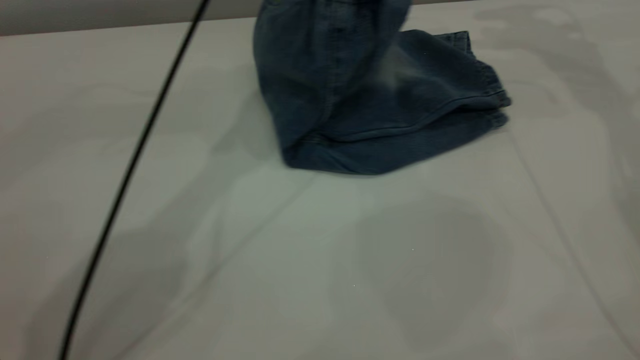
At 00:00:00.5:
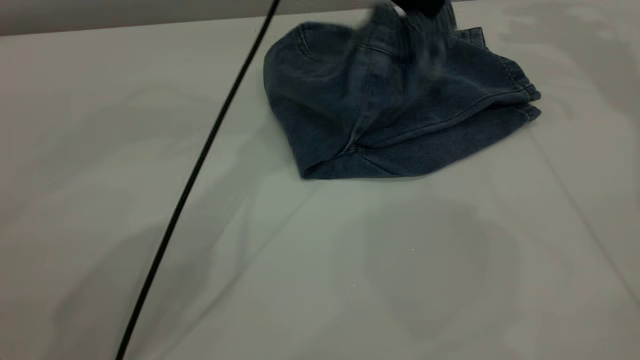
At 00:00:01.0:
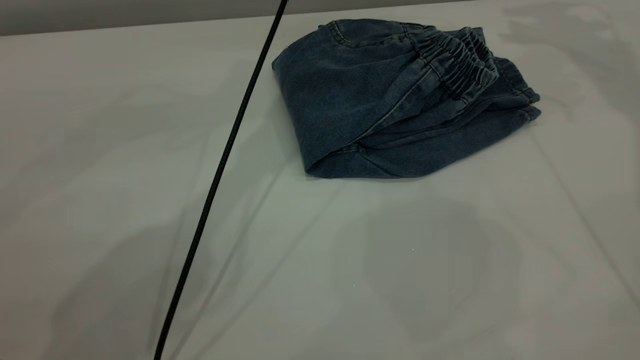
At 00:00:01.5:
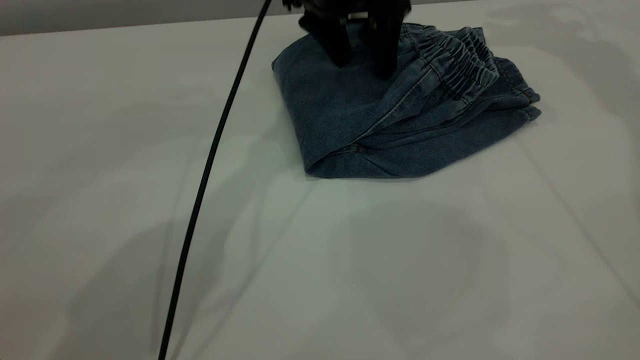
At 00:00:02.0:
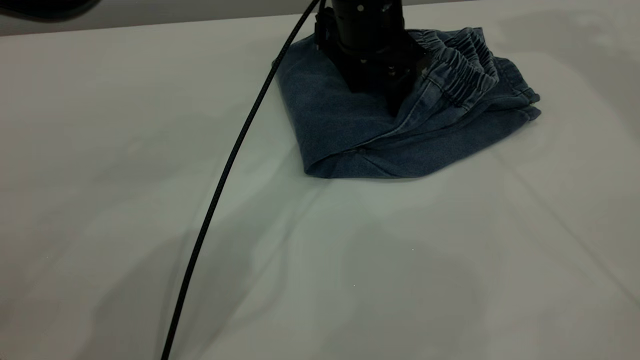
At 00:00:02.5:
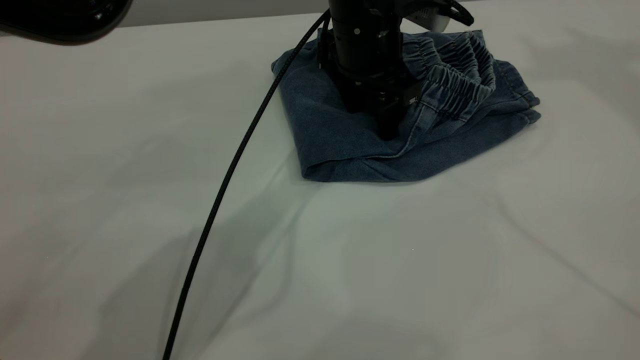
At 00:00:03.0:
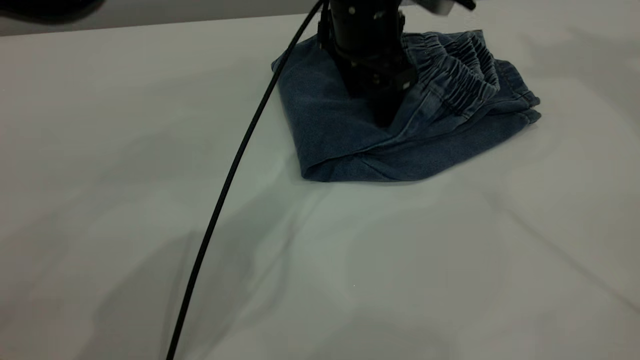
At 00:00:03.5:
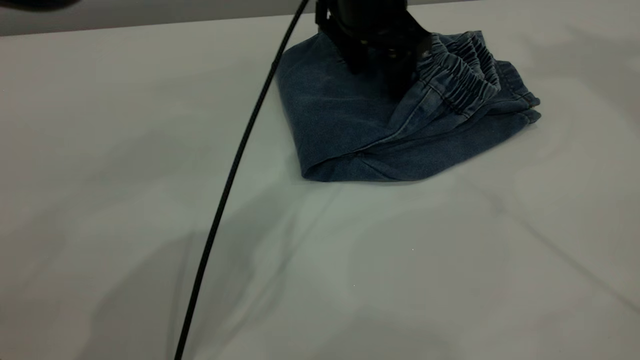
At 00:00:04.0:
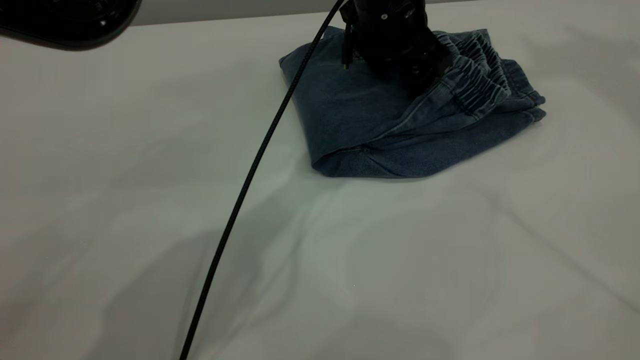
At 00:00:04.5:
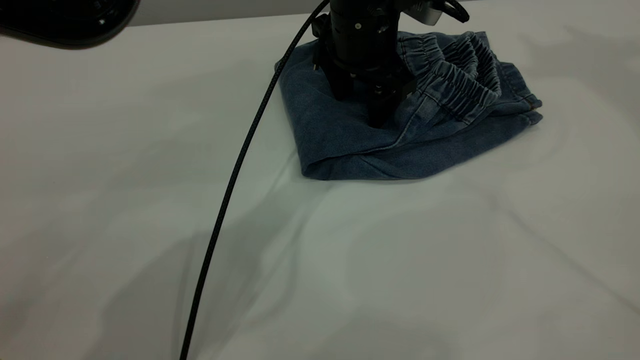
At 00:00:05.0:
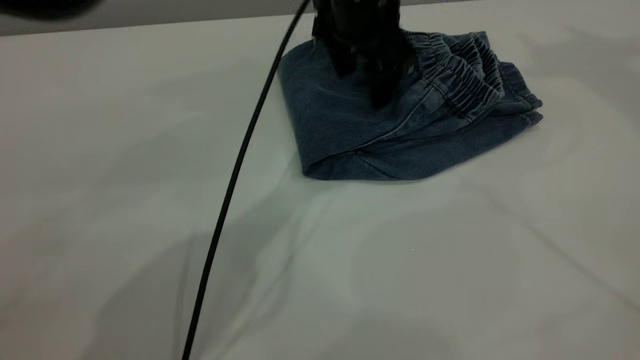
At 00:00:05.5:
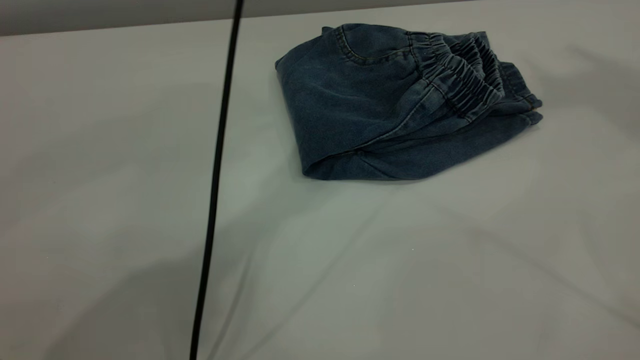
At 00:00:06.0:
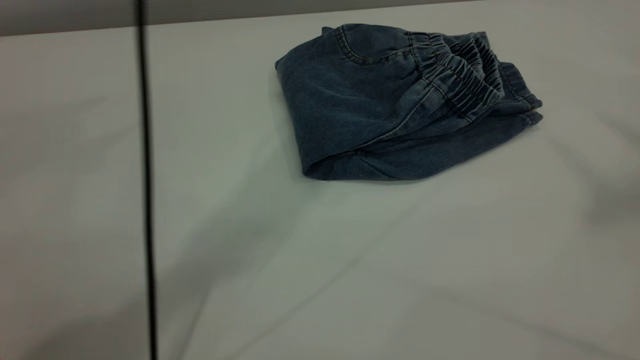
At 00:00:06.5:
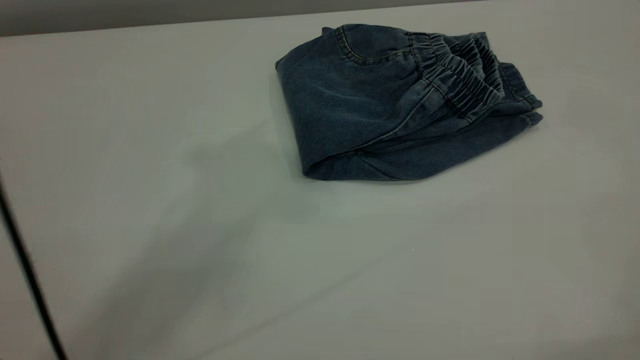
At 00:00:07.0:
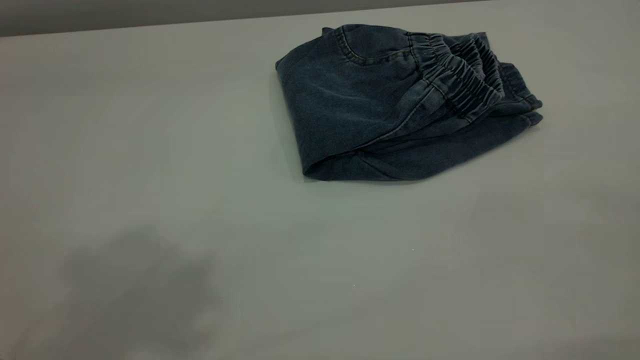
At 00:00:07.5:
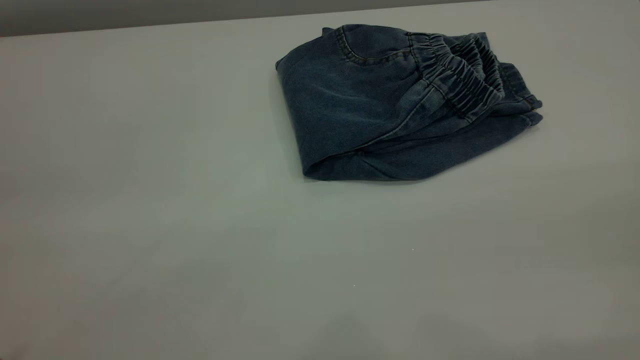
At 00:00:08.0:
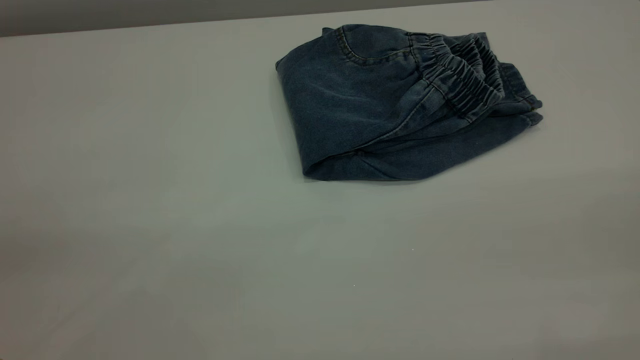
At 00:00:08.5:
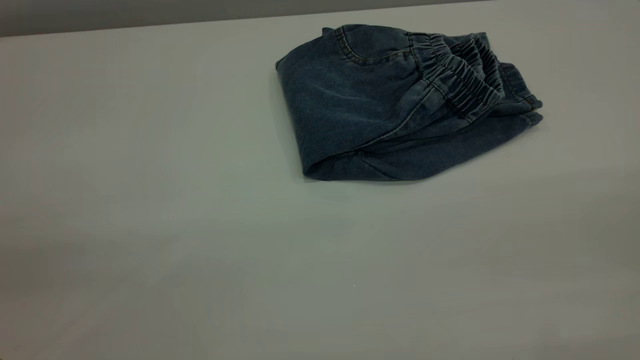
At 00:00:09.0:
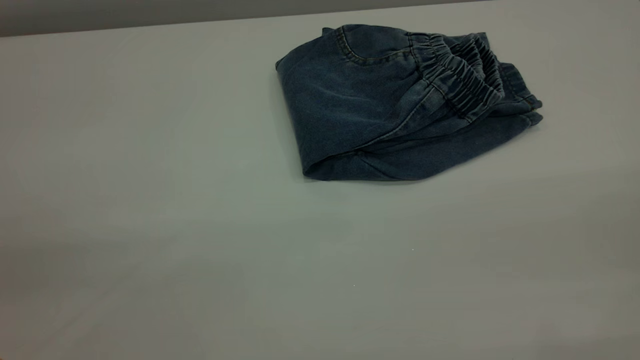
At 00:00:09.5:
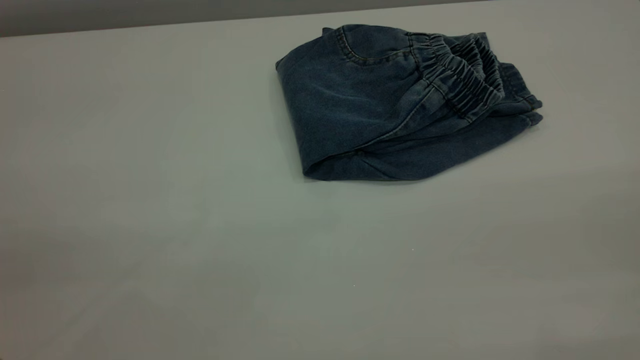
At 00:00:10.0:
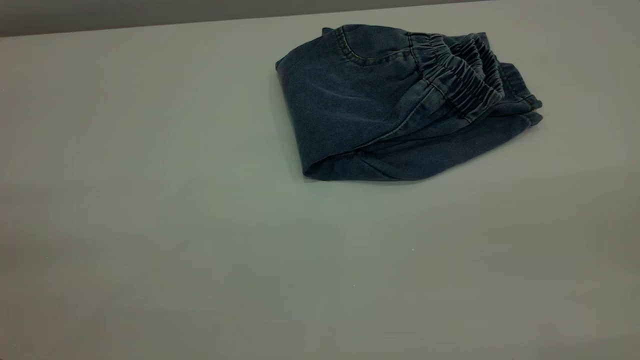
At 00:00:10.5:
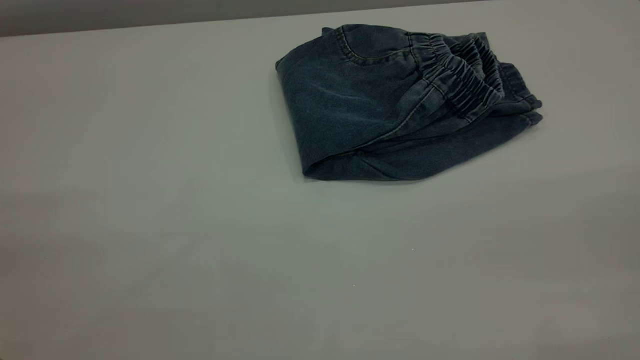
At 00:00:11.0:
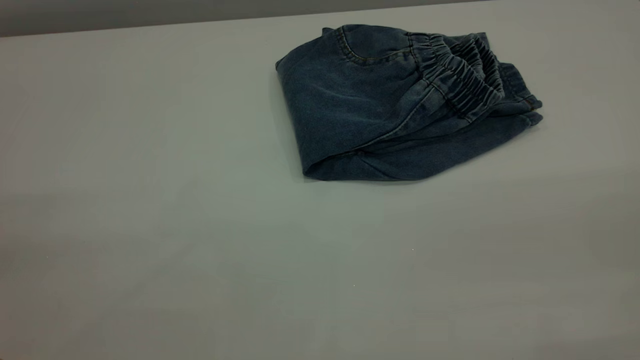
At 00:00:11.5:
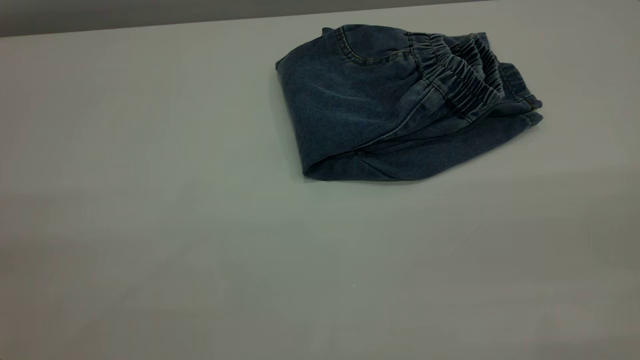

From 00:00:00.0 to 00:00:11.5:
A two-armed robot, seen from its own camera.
From 00:00:00.0 to 00:00:02.0: The right gripper heads upward, covering about 15 cm. Meanwhile the left gripper moves downward, about 15 cm, and opens up.
From 00:00:02.0 to 00:00:04.0: The right gripper is displaced upward and backward by roughly 10 cm.
From 00:00:04.0 to 00:00:06.0: The right gripper travels backward and upward by roughly 25 cm. Meanwhile the left gripper heads upward, covering approximately 35 cm.
From 00:00:06.0 to 00:00:07.5: The left gripper travels backward and to the left by some 40 cm.
